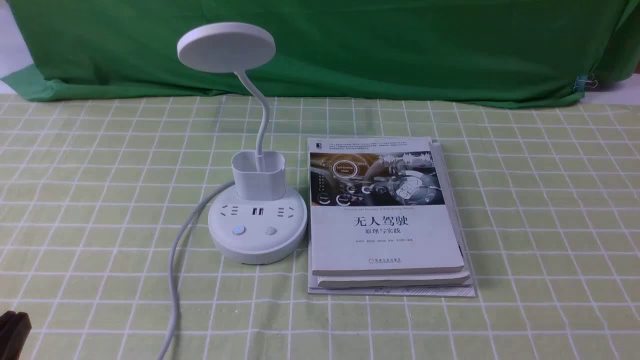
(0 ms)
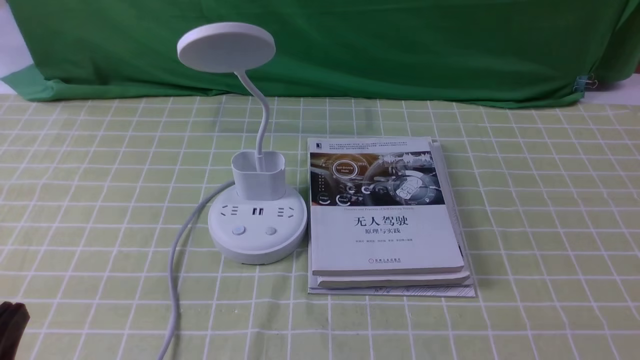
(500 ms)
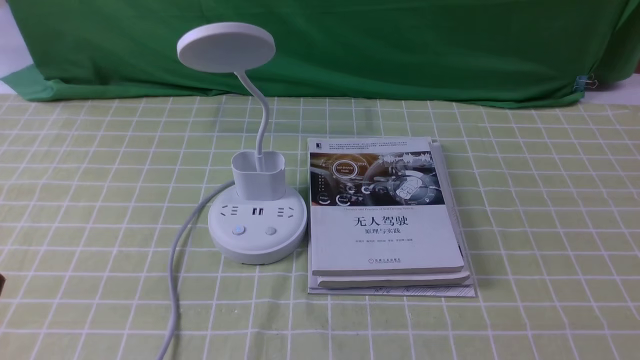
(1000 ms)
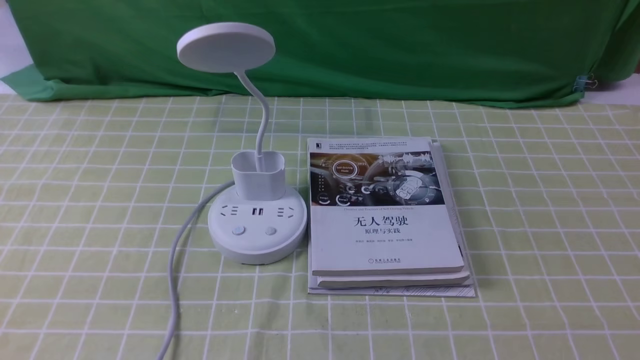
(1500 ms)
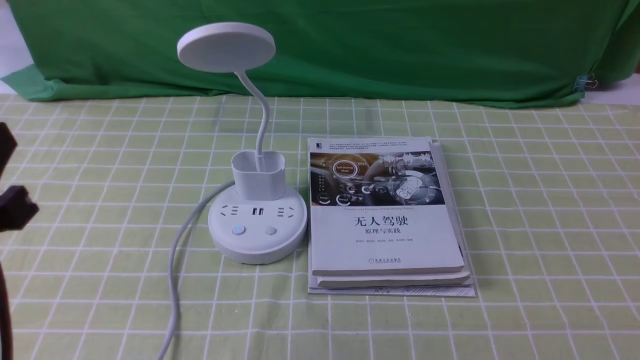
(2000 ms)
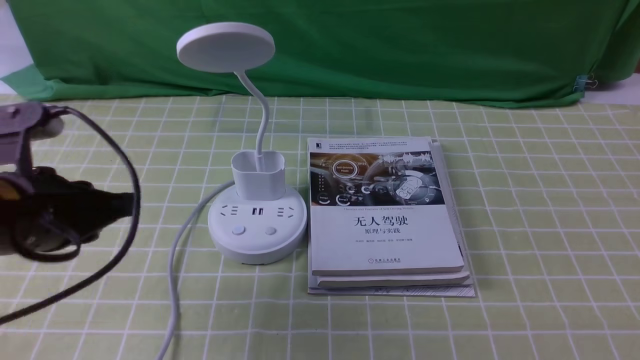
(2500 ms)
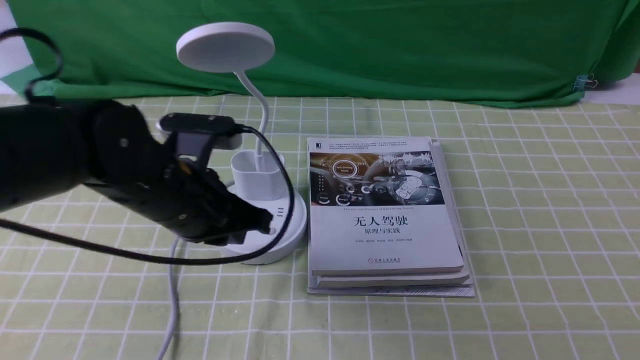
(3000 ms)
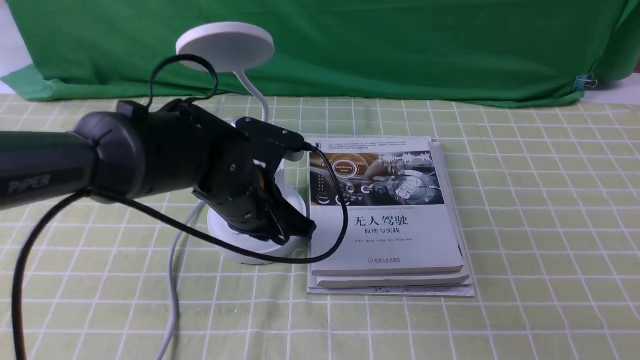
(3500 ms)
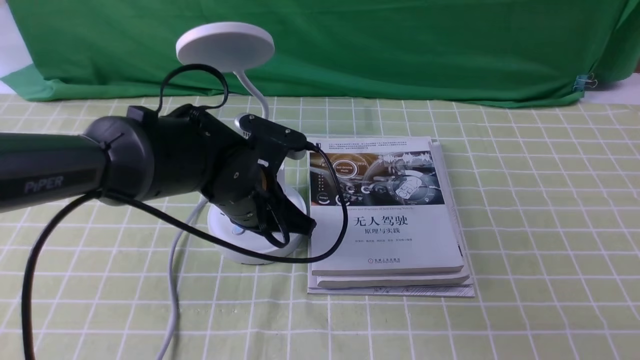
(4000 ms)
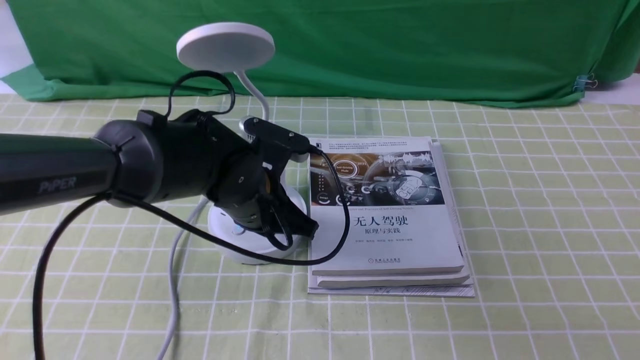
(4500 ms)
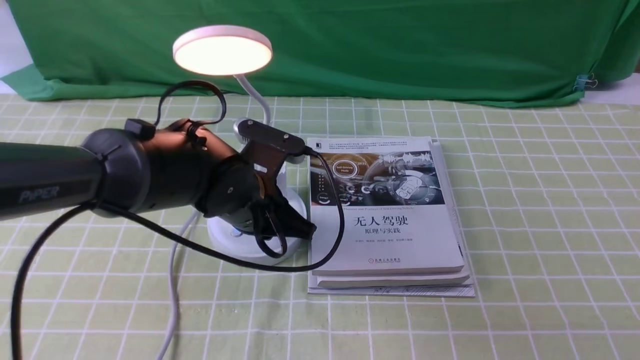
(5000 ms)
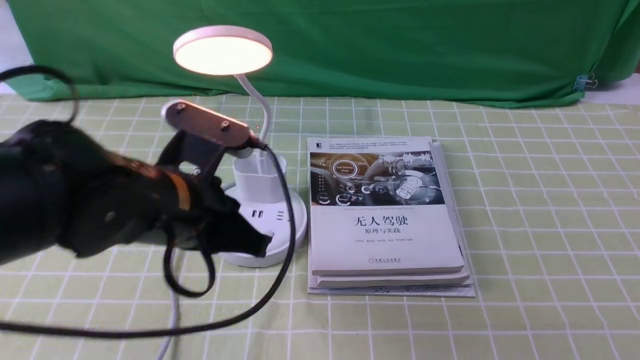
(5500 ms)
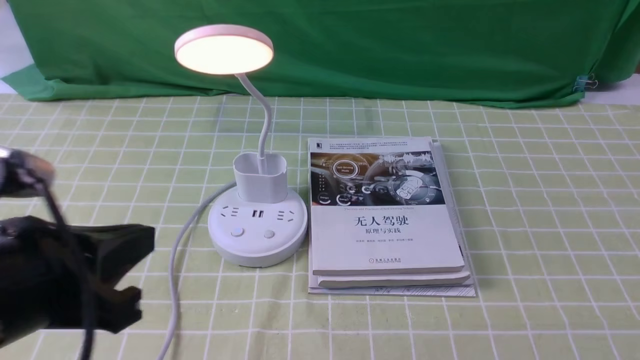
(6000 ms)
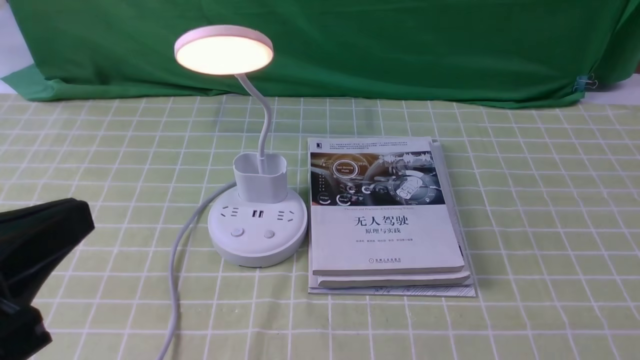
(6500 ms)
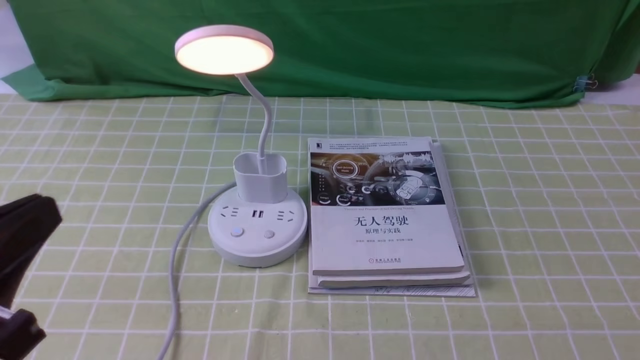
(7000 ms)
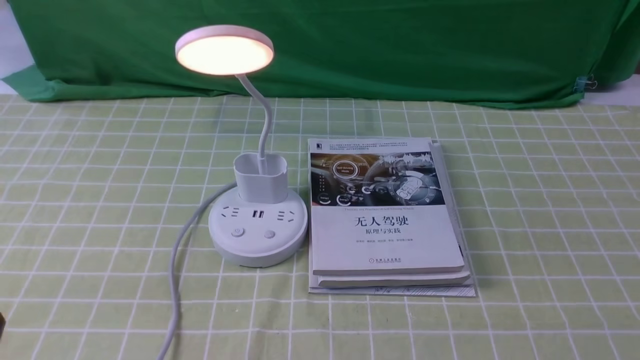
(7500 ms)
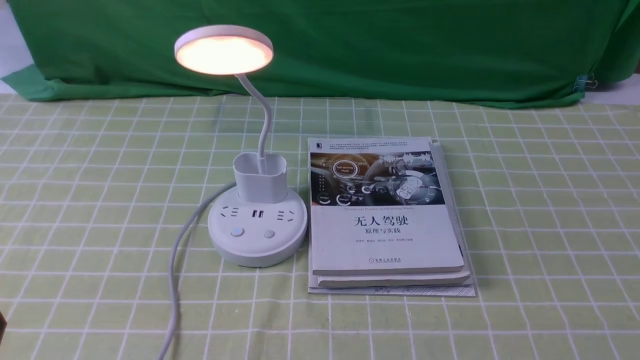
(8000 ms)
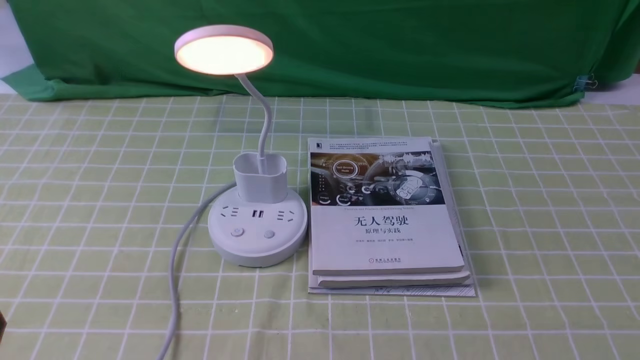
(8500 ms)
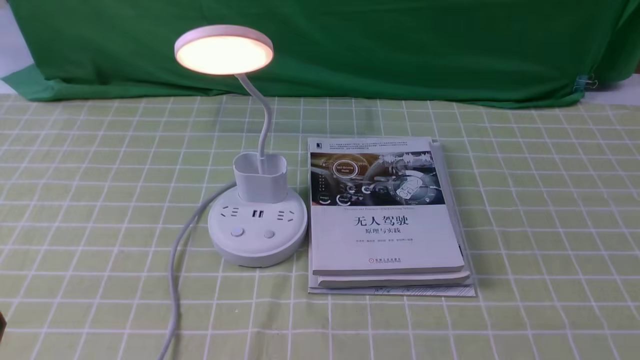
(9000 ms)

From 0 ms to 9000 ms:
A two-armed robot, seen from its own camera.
Step, from 0 ms to 5000 ms: use the left arm to press the button switch on the lamp holder.
From 2000 ms to 4500 ms: The left gripper is displaced forward, to the right and downward by some 30 cm.
From 4500 ms to 7000 ms: The left gripper is displaced backward, to the left and upward by approximately 30 cm.
From 7000 ms to 9000 ms: The left gripper heads downward, covering some 10 cm.
